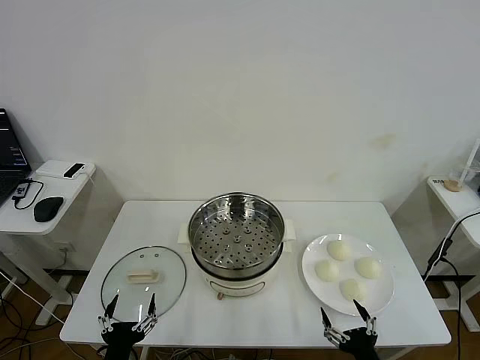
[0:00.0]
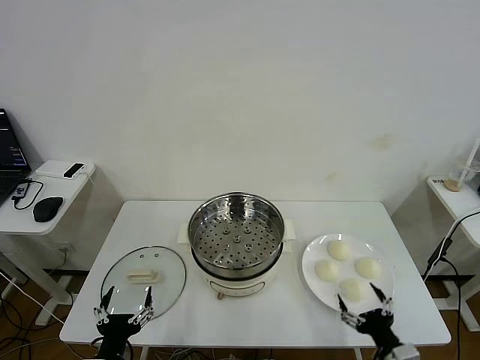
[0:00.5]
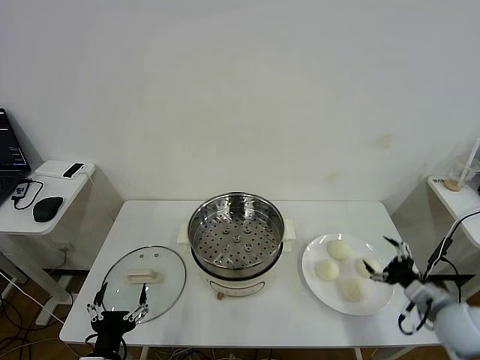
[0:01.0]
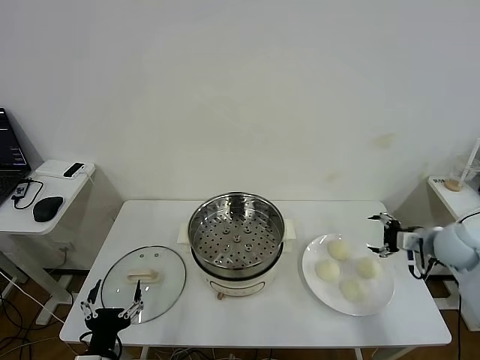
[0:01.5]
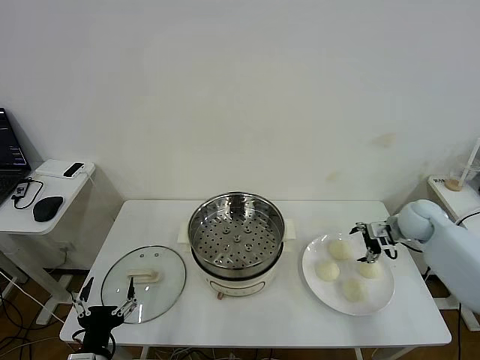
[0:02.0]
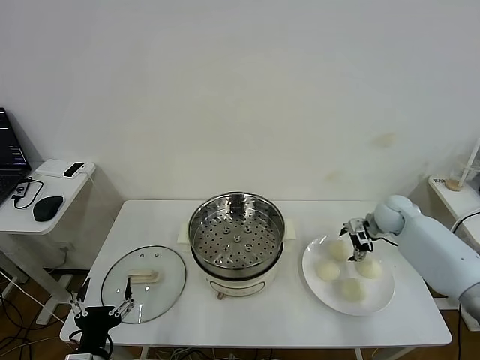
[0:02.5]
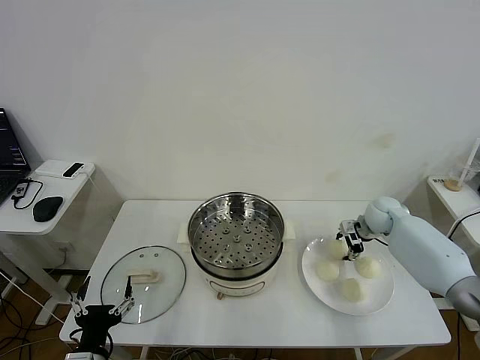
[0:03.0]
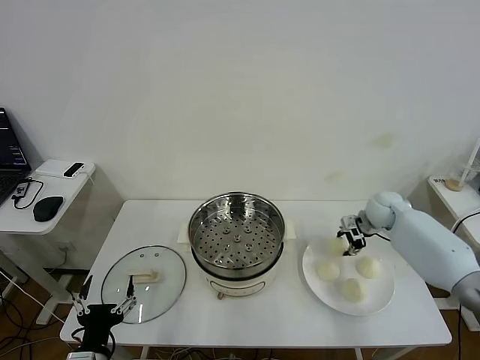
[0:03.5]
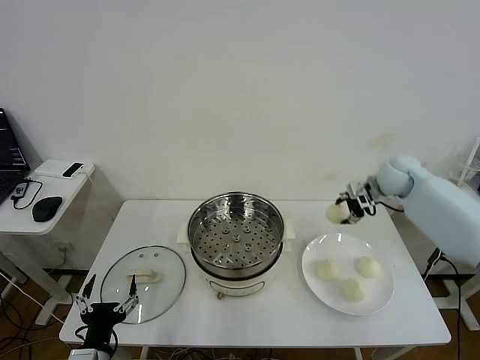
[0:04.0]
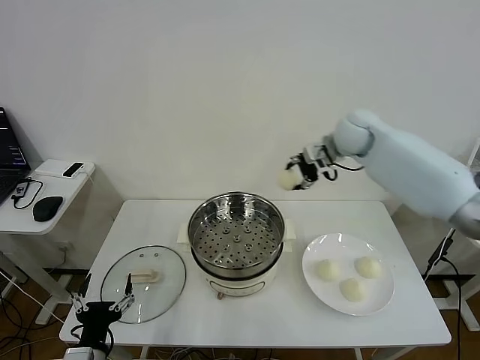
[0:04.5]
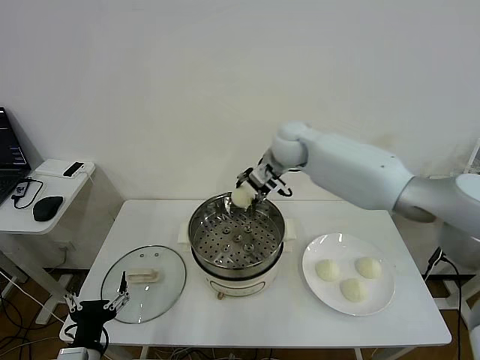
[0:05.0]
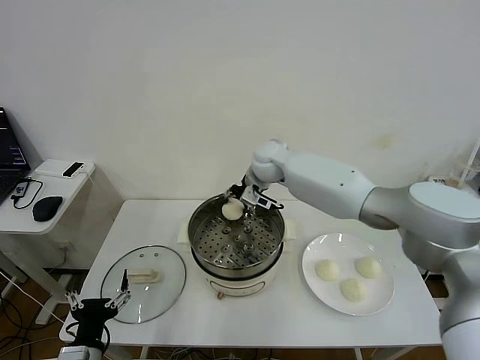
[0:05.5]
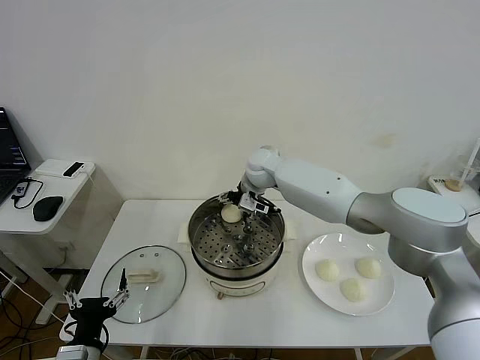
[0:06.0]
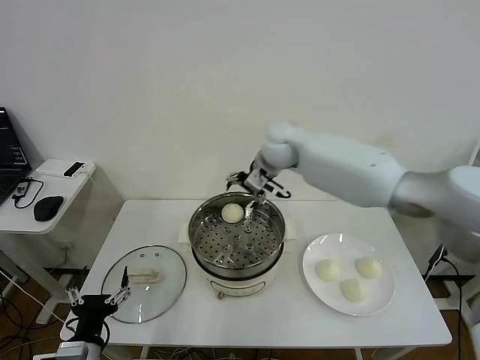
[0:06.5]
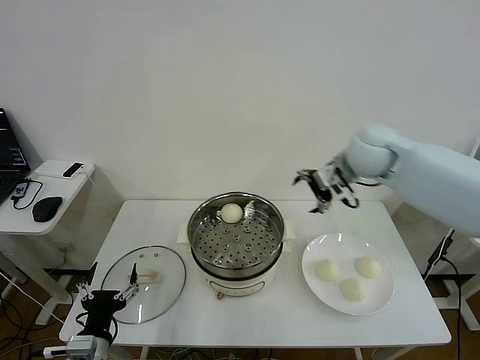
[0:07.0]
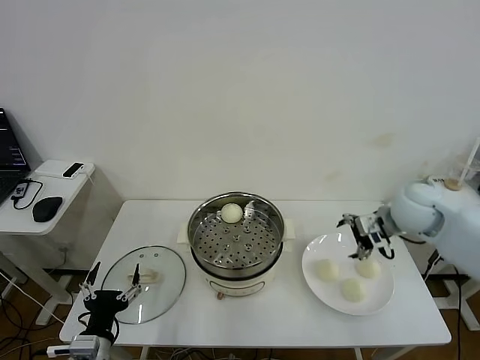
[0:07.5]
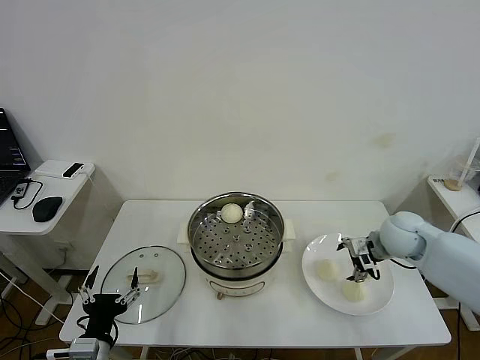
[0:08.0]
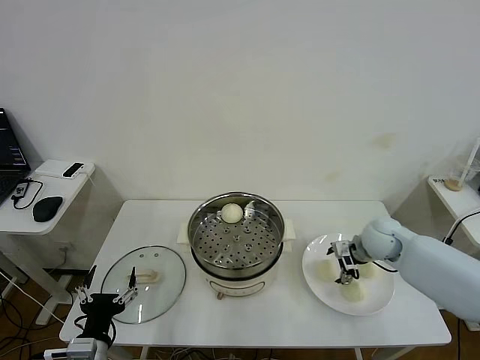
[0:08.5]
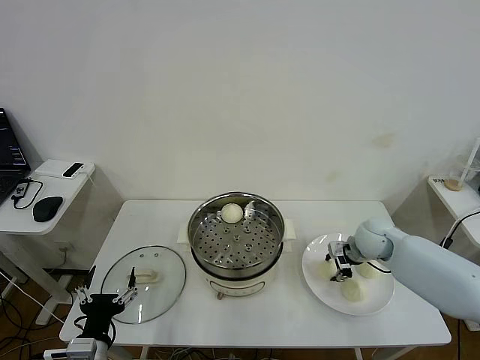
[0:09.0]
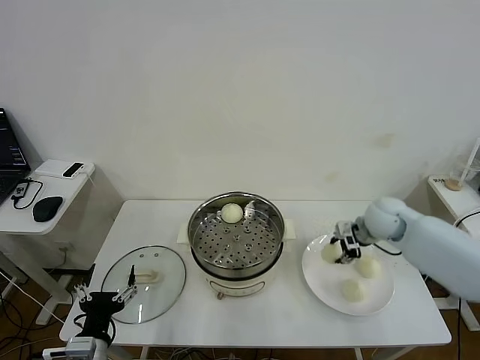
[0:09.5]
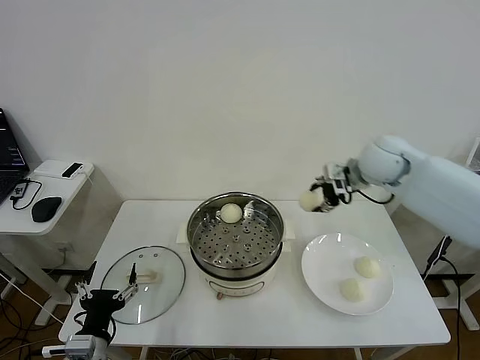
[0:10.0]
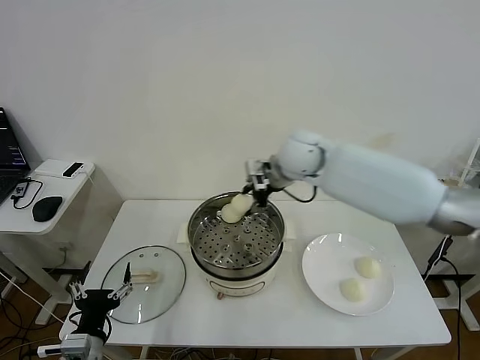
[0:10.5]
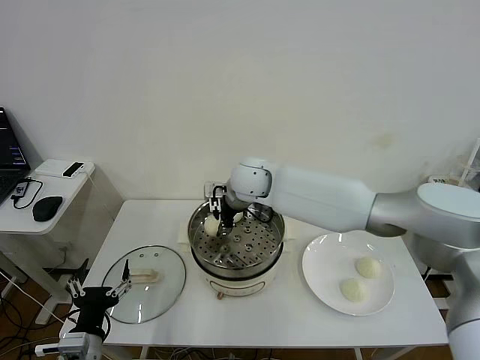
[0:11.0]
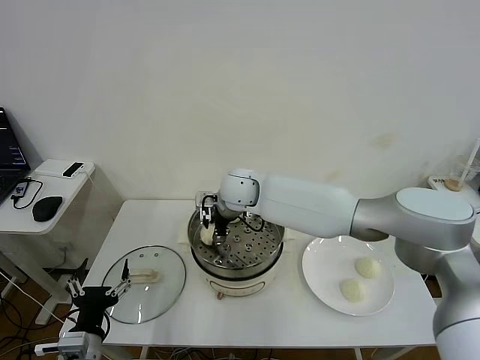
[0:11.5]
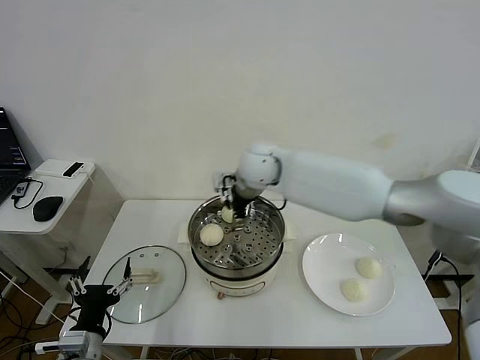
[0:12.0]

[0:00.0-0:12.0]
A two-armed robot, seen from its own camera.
Task of the whole recording: take steamed baozi put them in steamer then cover it.
Step, 0:00.0 to 0:03.0: Grasp the baozi in the plate with right gripper.
Step, 0:03.5 to 0:06.0: Place the baozi on the steamer with right gripper.
Step, 0:06.5 to 0:09.0: Grasp the baozi in the plate with right gripper.
Step, 0:09.5 to 0:11.5: Place the baozi on the steamer with right gripper.
0:02.0 to 0:04.0: The right gripper goes roughly 15 cm upward, to the left and forward, and closes its fingers.
0:04.0 to 0:06.0: The right gripper shifts approximately 30 cm to the left, and opens its fingers.
0:06.0 to 0:08.0: The right gripper moves to the right and backward, roughly 35 cm.
0:08.0 to 0:10.0: The right gripper travels upward, to the left and forward by roughly 20 cm, and closes up.
0:10.0 to 0:12.0: The right gripper shifts some 20 cm to the left, and opens up.

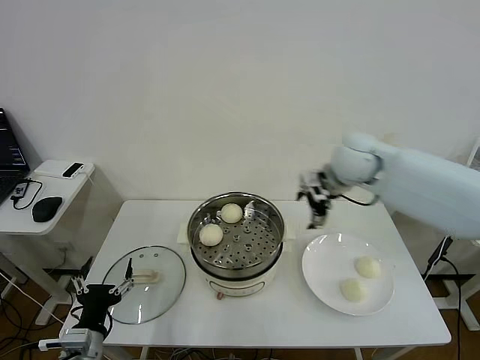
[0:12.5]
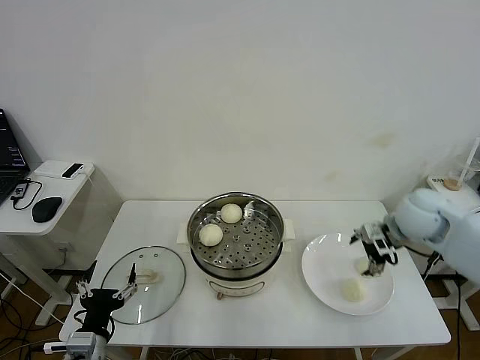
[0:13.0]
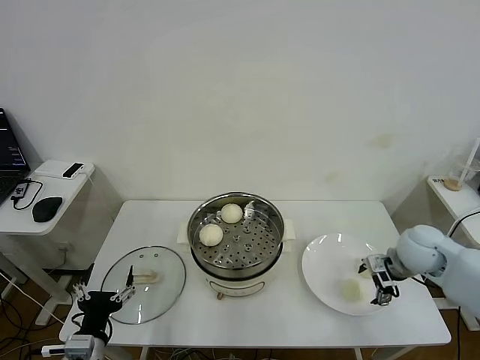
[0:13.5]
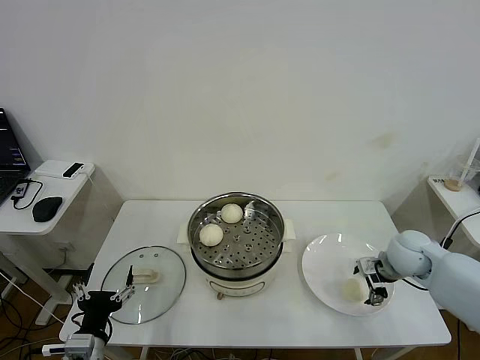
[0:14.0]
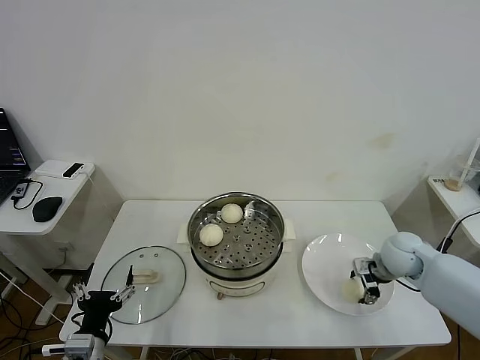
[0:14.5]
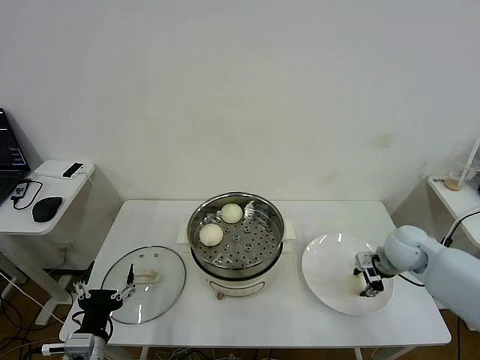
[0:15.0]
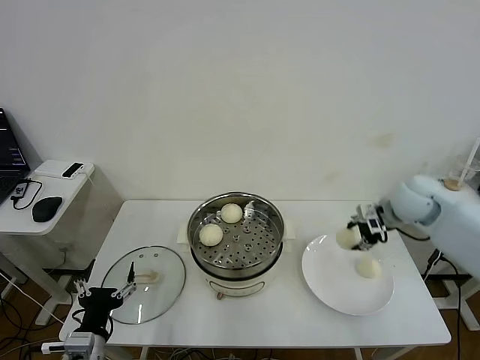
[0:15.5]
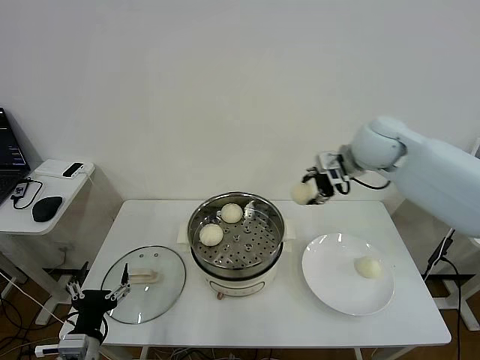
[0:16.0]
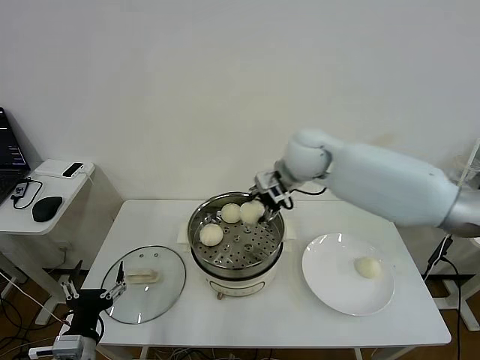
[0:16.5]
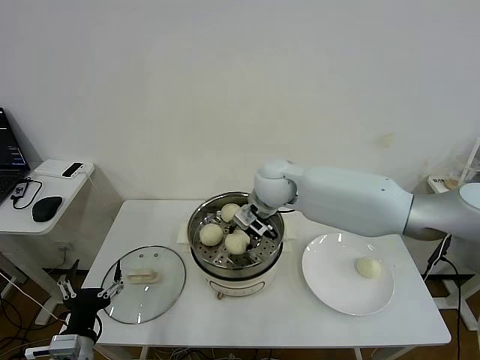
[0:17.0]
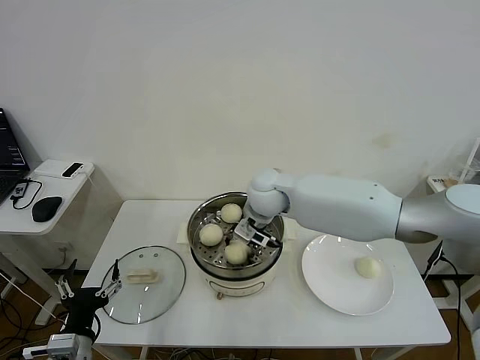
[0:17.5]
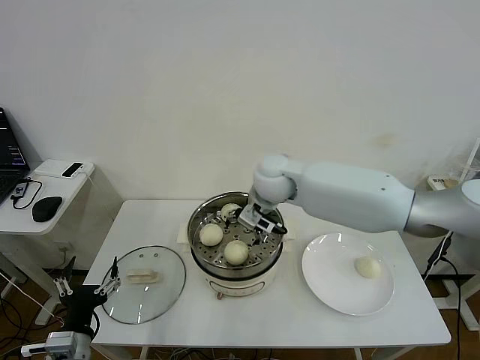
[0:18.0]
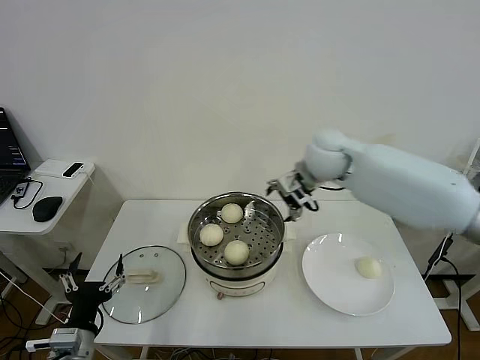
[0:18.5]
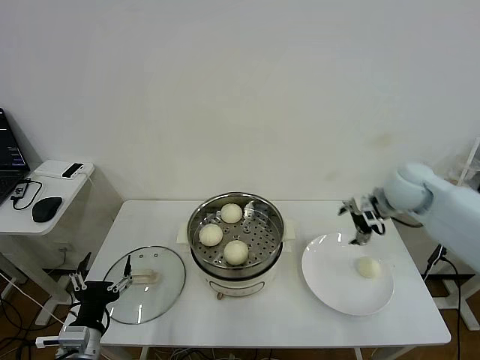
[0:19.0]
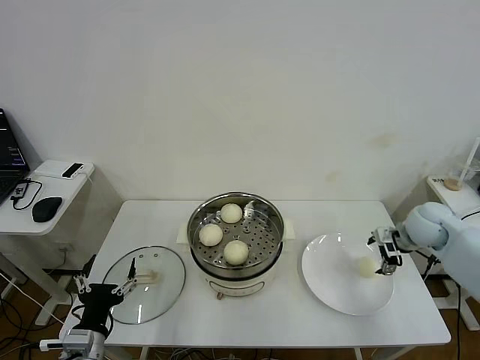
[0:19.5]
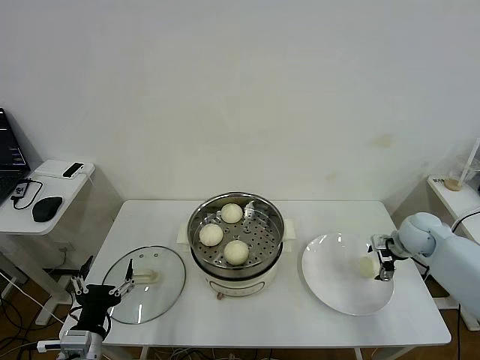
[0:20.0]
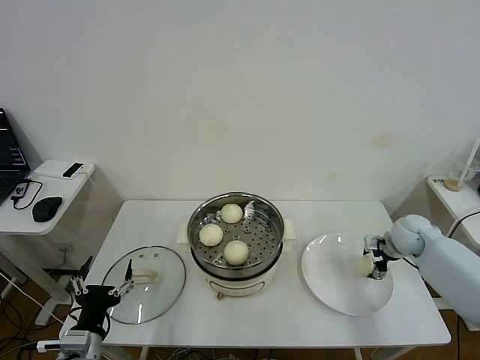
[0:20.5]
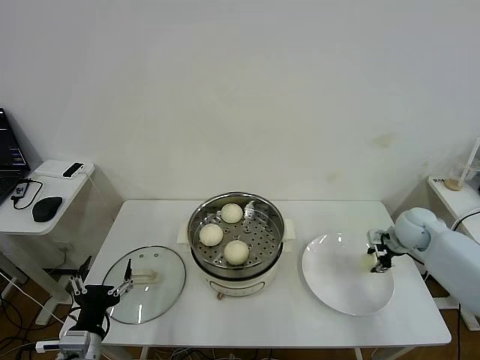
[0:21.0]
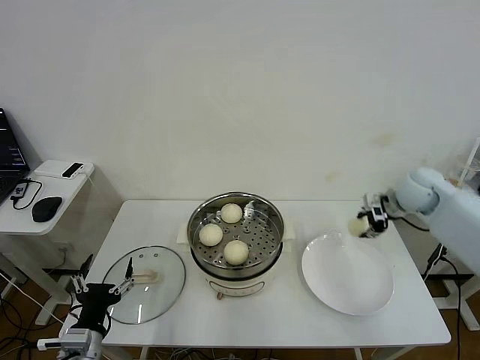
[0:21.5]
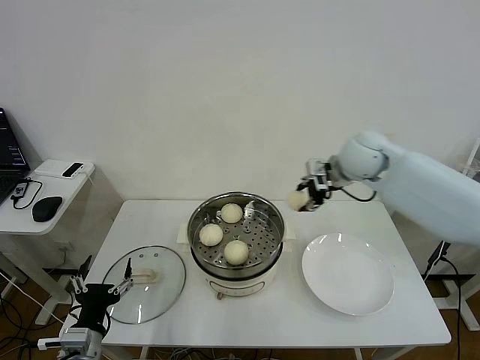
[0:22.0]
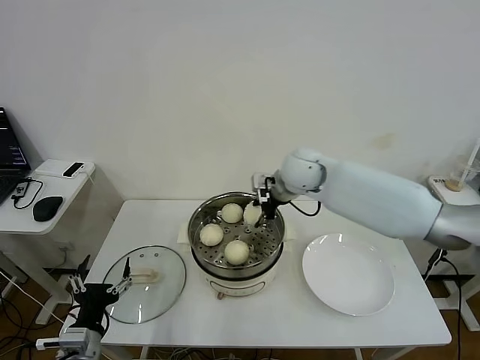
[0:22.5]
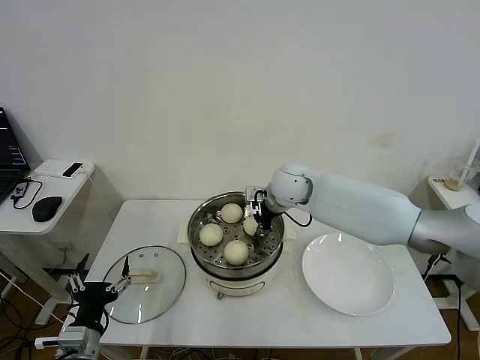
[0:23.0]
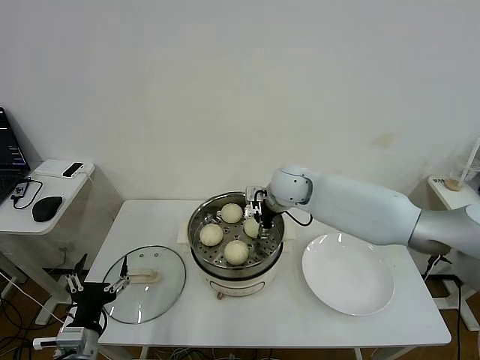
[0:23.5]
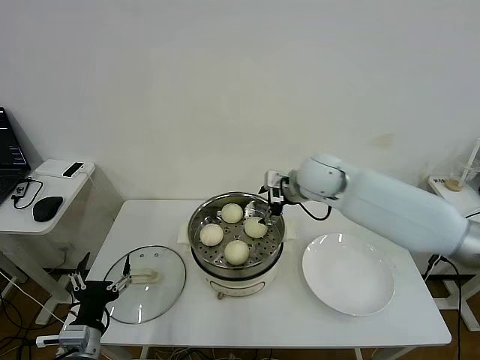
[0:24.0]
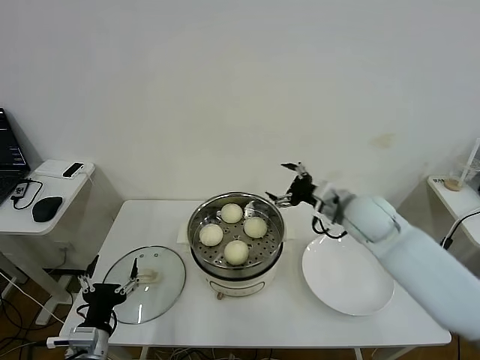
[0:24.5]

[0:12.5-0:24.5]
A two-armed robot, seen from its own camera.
Task of the whole recording: take steamed baozi put them in steamer then cover it.
Step, 0:12.5 to 0:14.5: Grasp the baozi in the plate with right gripper.
Step, 0:15.0 to 0:18.0: Place the baozi on the steamer with right gripper.
Step, 0:18.5 to 0:20.5: Grasp the baozi in the plate with right gripper.
Step, 0:21.5 to 0:23.5: Place the baozi on the steamer with right gripper.
0:12.5 to 0:14.5: The right gripper travels downward, to the right and backward by roughly 25 cm, and closes.
0:14.5 to 0:16.5: The right gripper shifts approximately 35 cm to the left, upward and forward, and closes.
0:16.5 to 0:18.5: The right gripper heads to the right, covering roughly 5 cm, and opens.
0:18.5 to 0:20.5: The right gripper goes about 35 cm to the right and downward.
0:20.5 to 0:22.5: The right gripper is displaced to the left and upward by approximately 35 cm, and closes its fingers.
0:22.5 to 0:24.5: The right gripper heads to the right and backward, covering roughly 15 cm, and opens up.

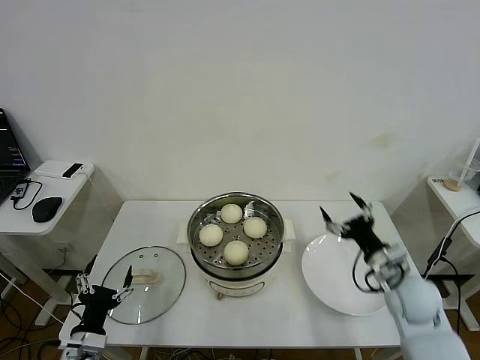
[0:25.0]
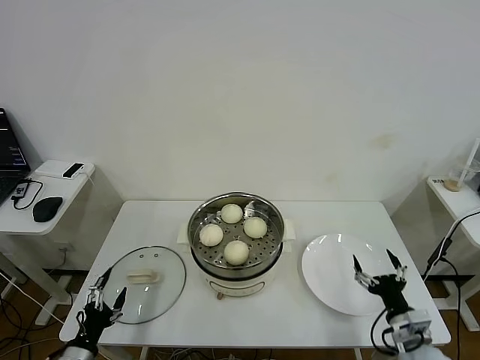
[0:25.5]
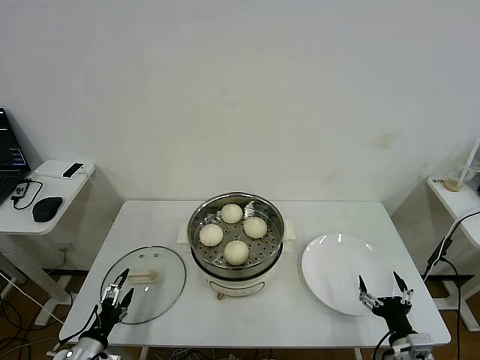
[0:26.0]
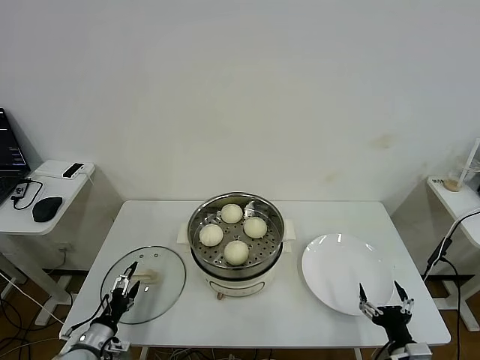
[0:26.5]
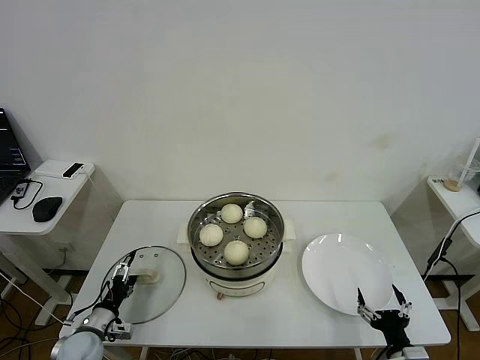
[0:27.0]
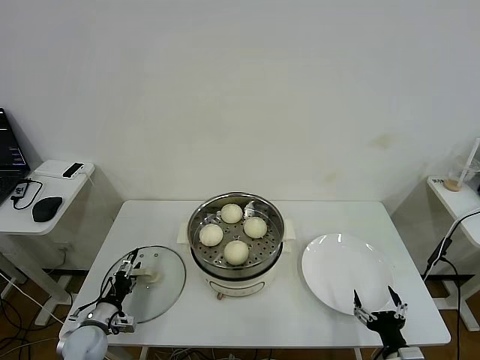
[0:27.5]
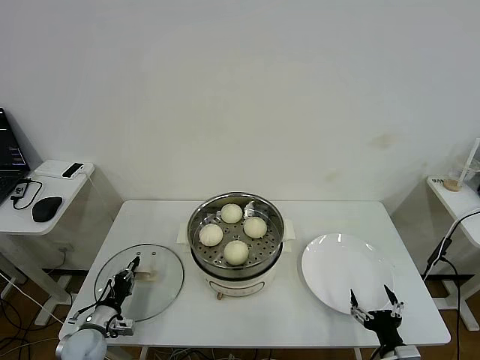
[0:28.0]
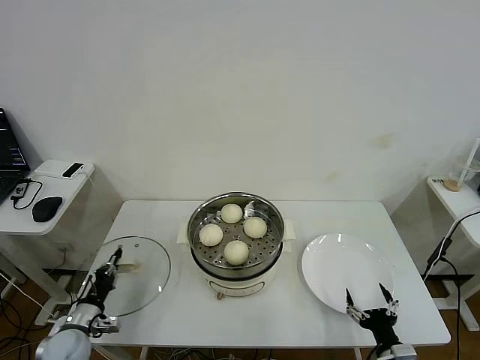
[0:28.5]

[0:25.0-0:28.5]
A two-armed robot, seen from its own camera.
Task of the whole recording: take steamed baozi put them in steamer then cover it.
Step, 0:25.0 to 0:28.0: Grasp the pot lid with left gripper.
0:25.0 to 0:27.0: The left gripper travels downward, forward and to the left by about 15 cm, while the right gripper heads backward and downward, covering about 20 cm.
0:27.0 to 0:28.5: The left gripper closes its fingers.
